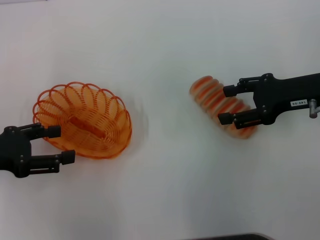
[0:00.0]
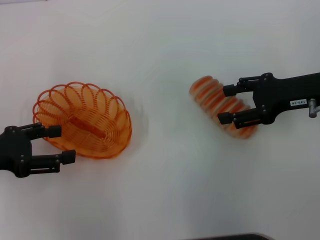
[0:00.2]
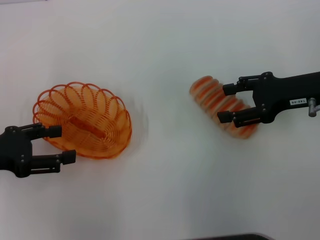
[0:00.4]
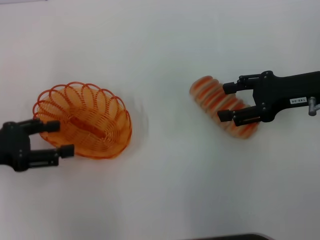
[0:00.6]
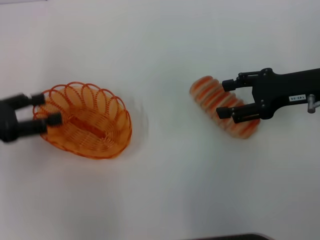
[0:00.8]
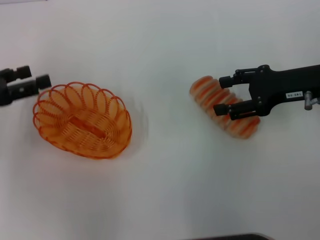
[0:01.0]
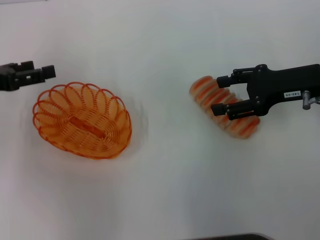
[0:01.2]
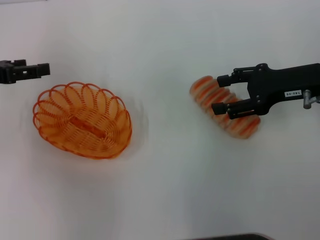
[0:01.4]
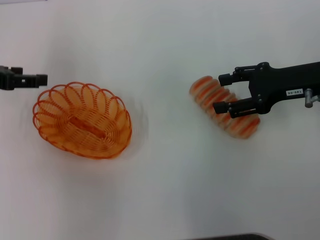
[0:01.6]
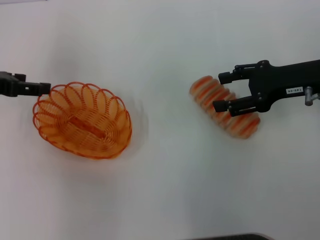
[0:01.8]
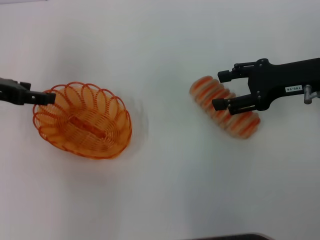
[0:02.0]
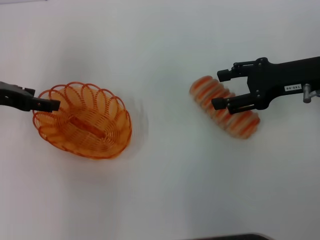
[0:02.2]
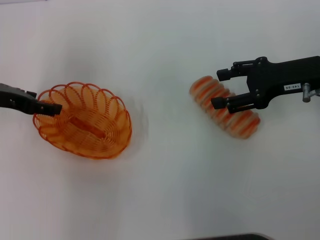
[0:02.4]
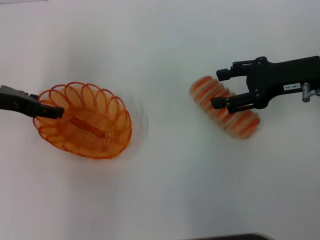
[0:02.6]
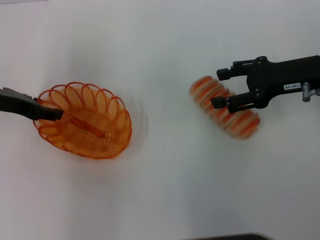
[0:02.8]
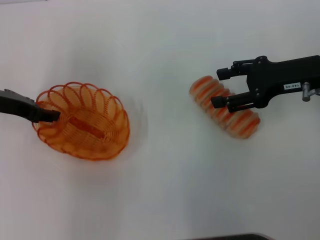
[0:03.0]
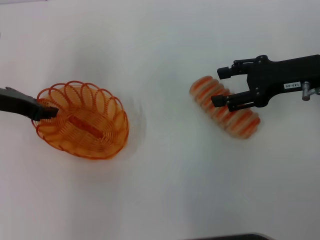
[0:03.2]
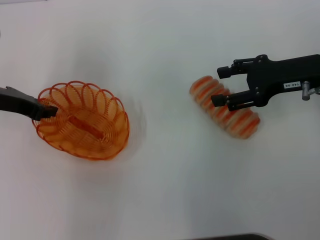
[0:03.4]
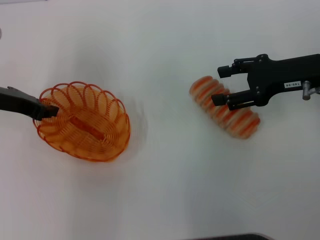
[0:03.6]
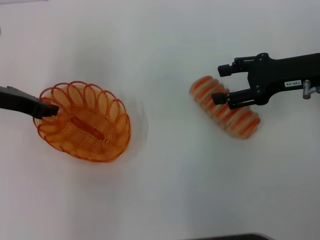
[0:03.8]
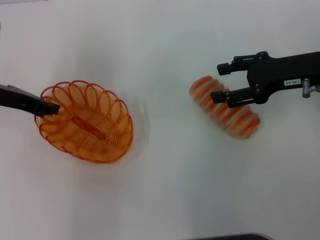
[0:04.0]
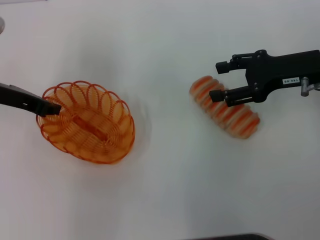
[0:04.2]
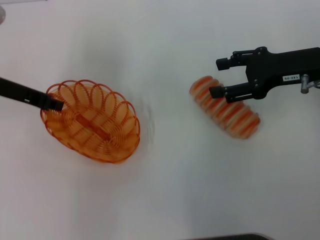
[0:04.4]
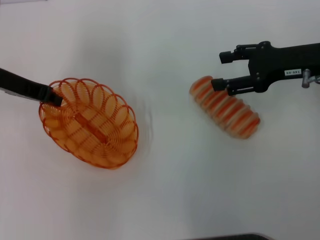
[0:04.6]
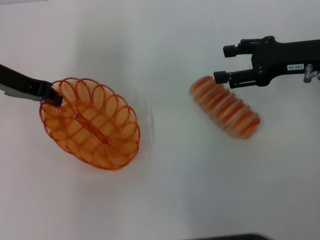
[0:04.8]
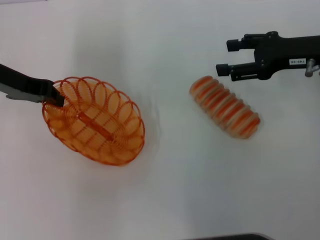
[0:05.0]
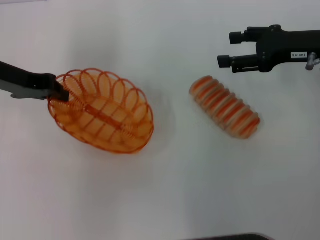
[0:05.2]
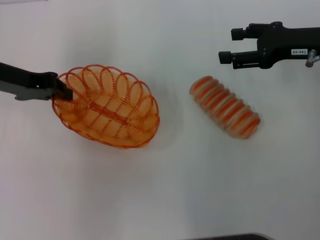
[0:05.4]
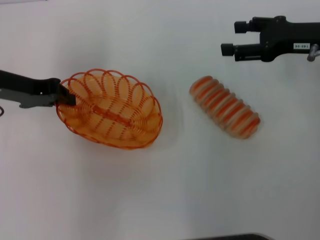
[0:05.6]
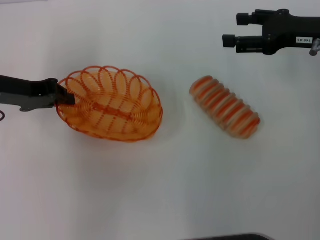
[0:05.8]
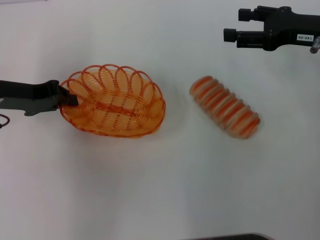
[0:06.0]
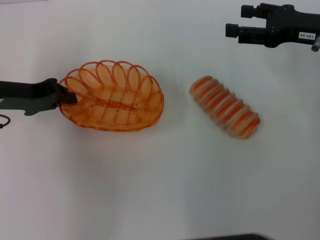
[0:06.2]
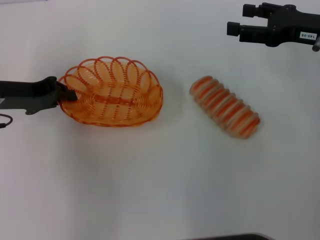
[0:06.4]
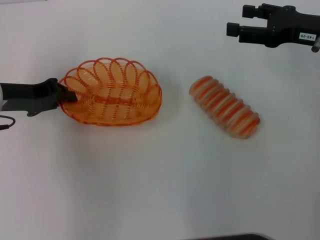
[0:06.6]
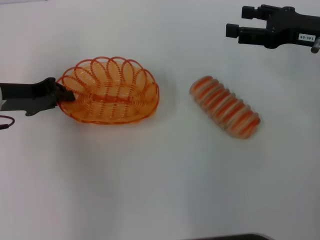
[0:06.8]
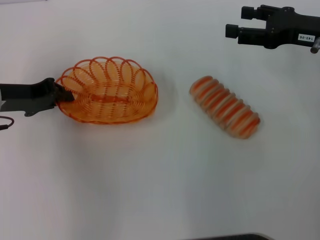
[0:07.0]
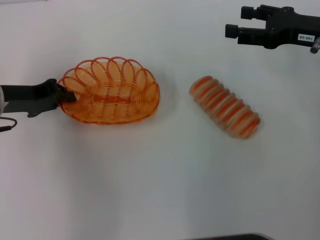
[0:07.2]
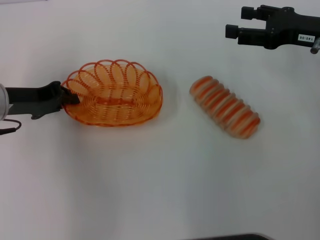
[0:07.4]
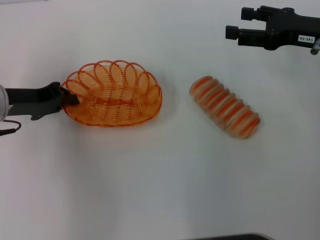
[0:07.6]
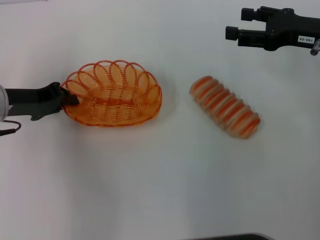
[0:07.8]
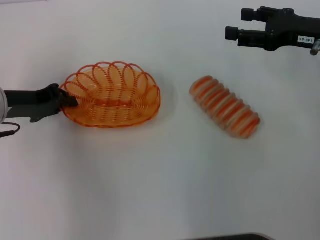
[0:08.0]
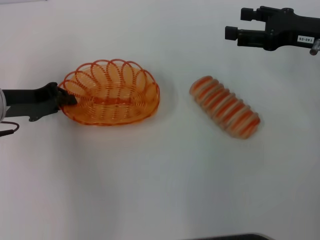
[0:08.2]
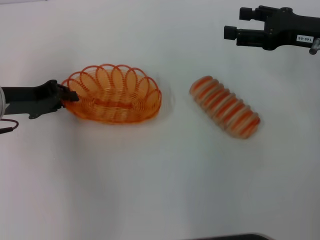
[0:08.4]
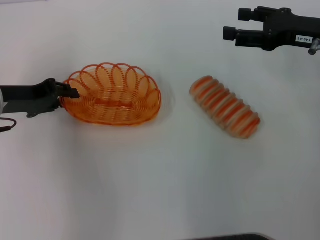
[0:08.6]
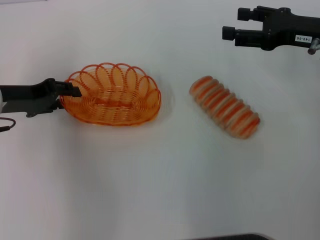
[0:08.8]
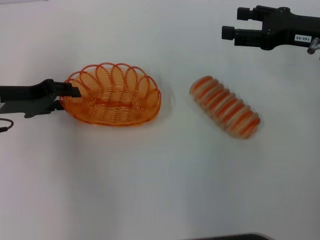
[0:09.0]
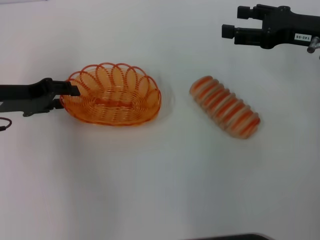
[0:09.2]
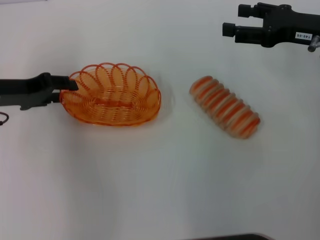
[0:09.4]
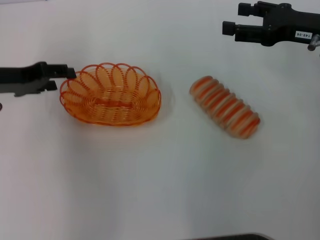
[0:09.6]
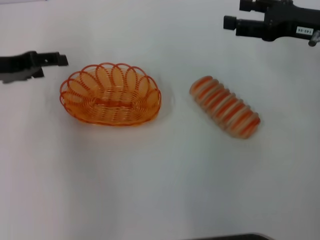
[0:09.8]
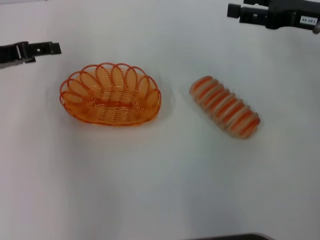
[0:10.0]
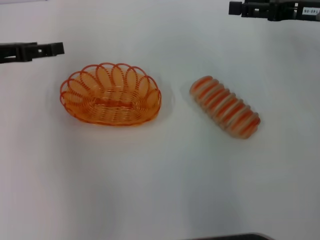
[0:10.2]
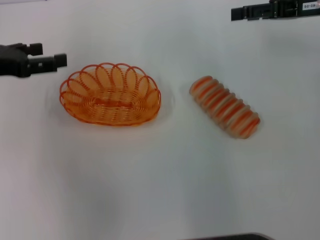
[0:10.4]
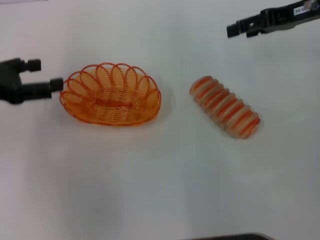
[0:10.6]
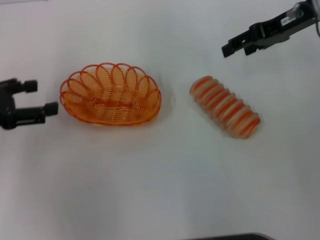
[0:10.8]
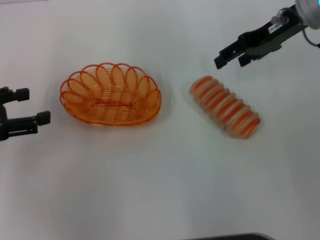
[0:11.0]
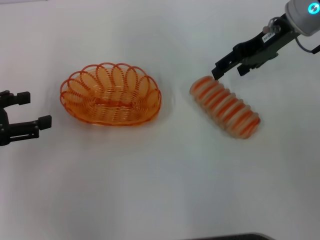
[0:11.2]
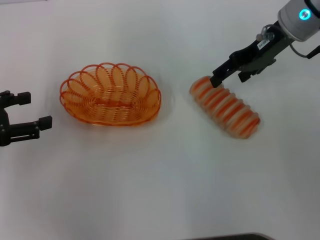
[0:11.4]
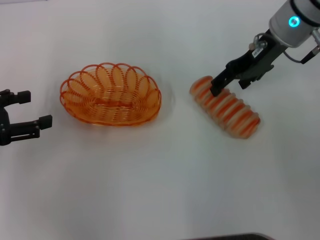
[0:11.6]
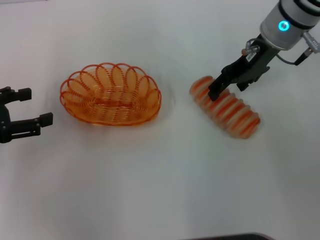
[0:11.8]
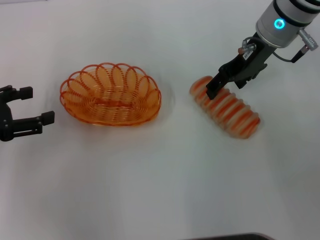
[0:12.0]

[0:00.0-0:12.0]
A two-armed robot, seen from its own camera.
Step, 0:00.0 to 0:05.2: Pick up the basket with the left gripper.
Step, 0:05.4 to 0:09.6: Place the basket in the center of view with the left gripper.
0:00.0 to 0:01.6: The left gripper heads forward, covering roughly 10 cm.
0:01.6 to 0:03.0: The left gripper shifts by about 5 cm.
0:03.0 to 0:04.4: The left gripper closes up.
0:06.0 to 0:07.6: The grippers stay close to where they were, moving slightly.
0:07.6 to 0:09.0: The left gripper opens its fingers.
0:09.0 to 0:10.4: The right gripper moves approximately 5 cm, while the left gripper moves upward, about 5 cm, and opens up.
0:10.4 to 0:12.0: The left gripper heads backward, covering roughly 5 cm. The right gripper travels to the left by about 10 cm.

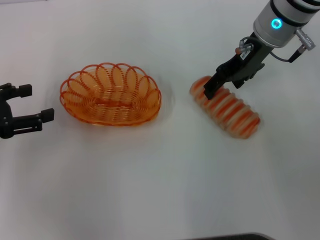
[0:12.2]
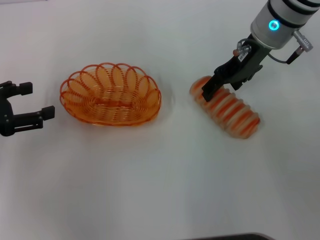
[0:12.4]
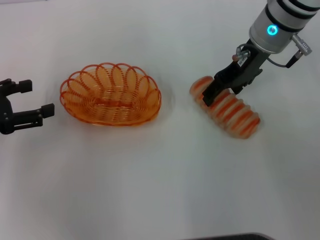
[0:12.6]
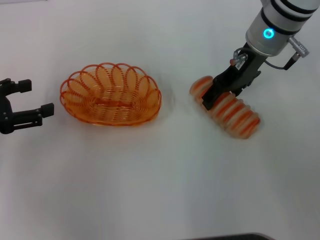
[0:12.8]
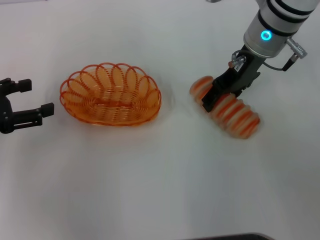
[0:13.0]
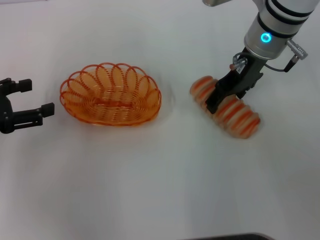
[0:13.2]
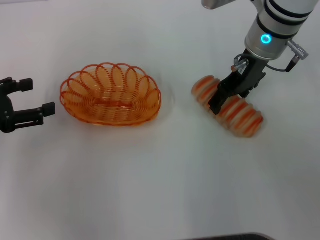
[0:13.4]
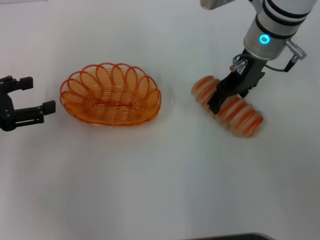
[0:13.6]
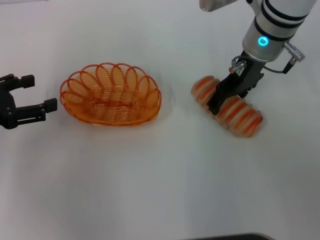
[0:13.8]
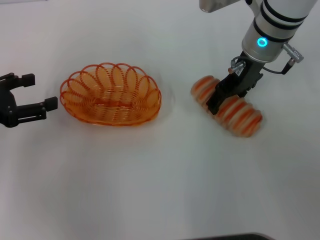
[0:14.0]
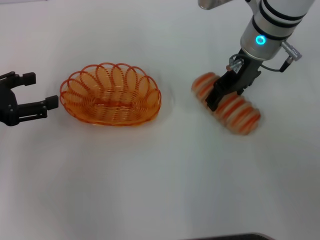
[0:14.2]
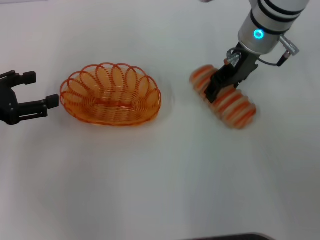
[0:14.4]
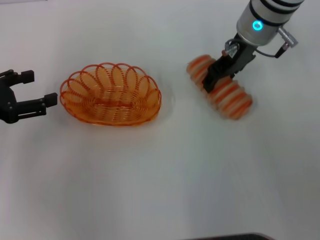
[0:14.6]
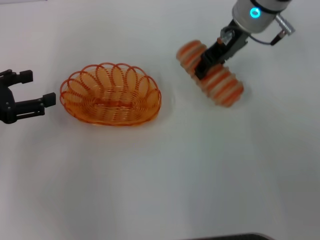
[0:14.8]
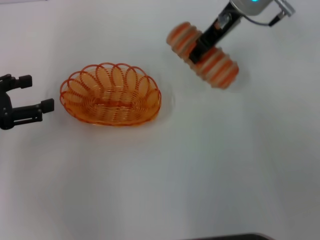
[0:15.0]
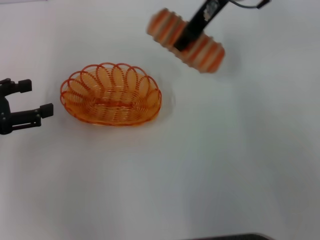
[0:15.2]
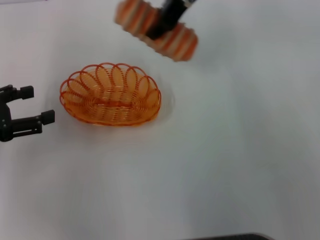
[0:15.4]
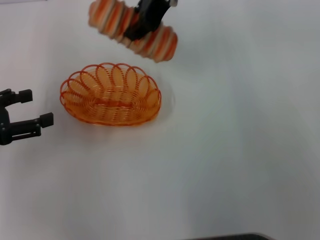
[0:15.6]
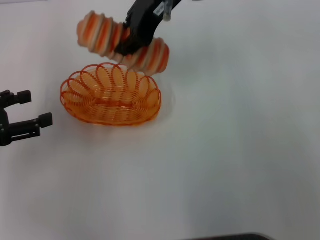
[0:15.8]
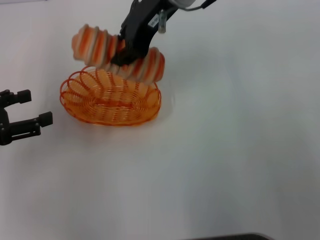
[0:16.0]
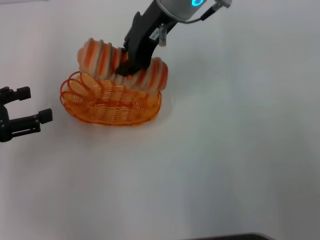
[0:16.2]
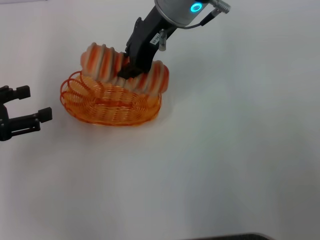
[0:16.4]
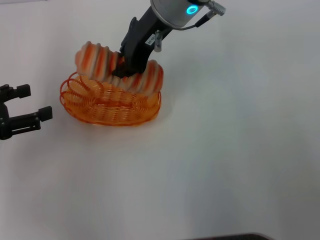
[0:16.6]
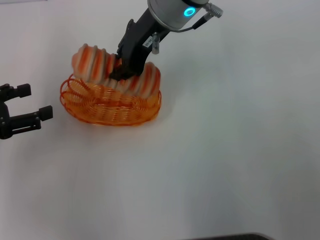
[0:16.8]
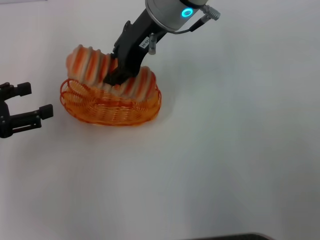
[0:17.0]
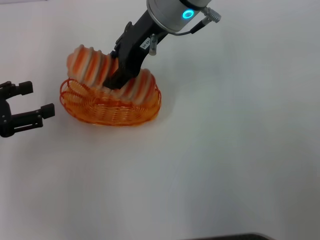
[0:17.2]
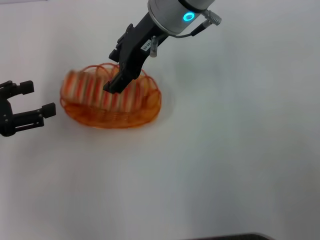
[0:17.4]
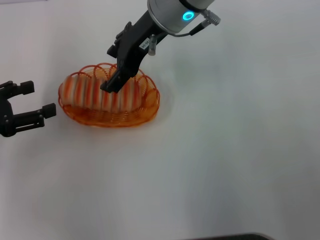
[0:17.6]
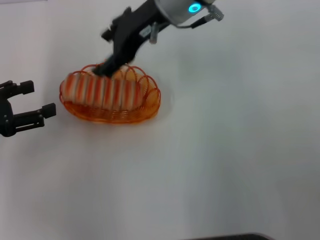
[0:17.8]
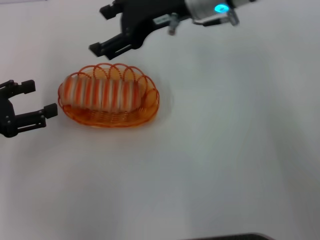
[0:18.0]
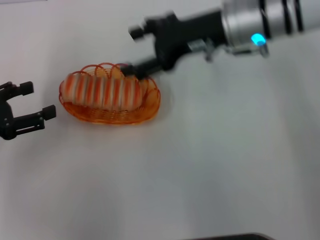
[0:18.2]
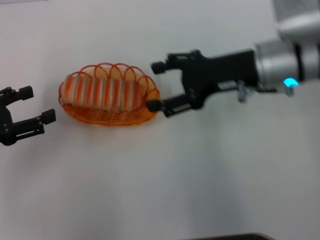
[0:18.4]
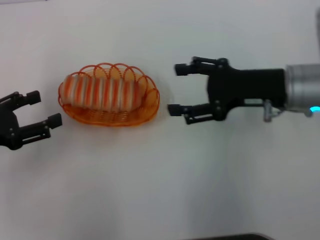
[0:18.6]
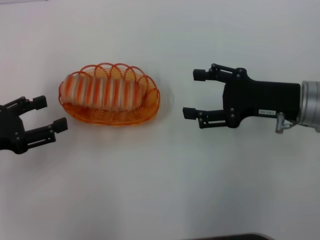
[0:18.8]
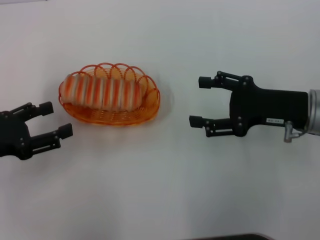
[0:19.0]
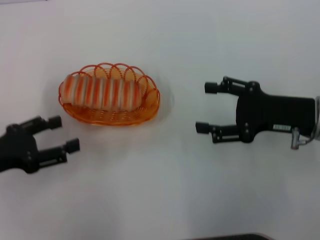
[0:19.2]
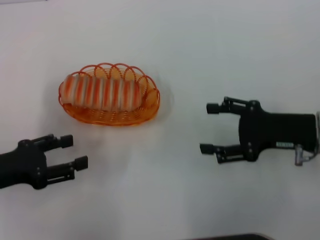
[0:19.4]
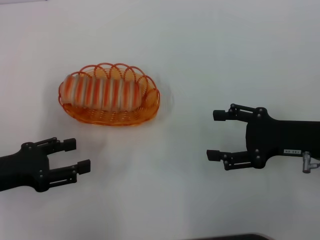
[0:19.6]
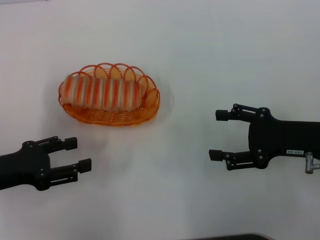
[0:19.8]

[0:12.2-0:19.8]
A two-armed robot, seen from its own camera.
Step, 0:12.2 to 0:14.6: Pick up the long bread with the right gripper.
Step, 0:14.8 to 0:17.8: Place the long bread into the basket with the right gripper.
0:12.2 to 0:13.8: The grippers stay close to where they were, moving slightly.
0:13.8 to 0:15.2: The right gripper is displaced upward by roughly 5 cm, and closes.
0:15.2 to 0:16.8: The right gripper travels to the left by about 5 cm, and closes up.
0:16.8 to 0:18.2: The right gripper moves to the right, roughly 10 cm, and opens its fingers.
0:18.2 to 0:19.8: The left gripper changes place by approximately 5 cm, while the right gripper travels backward, to the right and downward by some 20 cm.

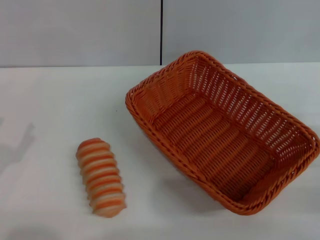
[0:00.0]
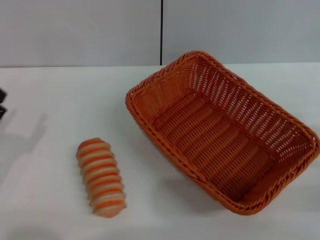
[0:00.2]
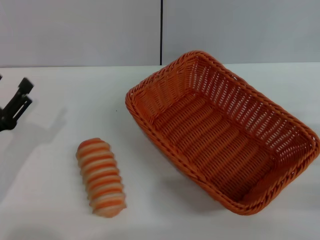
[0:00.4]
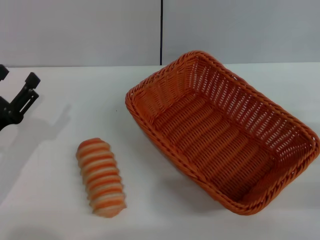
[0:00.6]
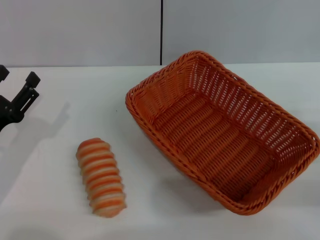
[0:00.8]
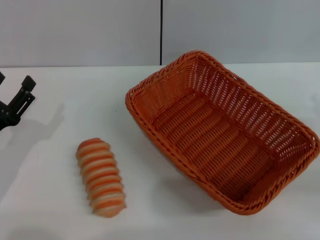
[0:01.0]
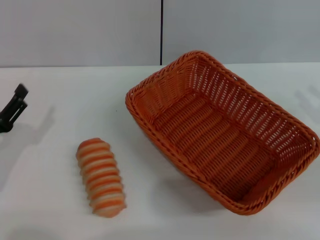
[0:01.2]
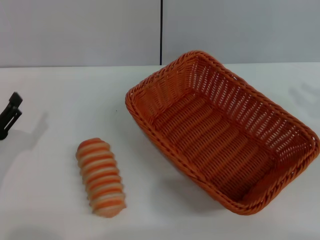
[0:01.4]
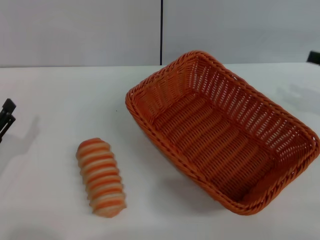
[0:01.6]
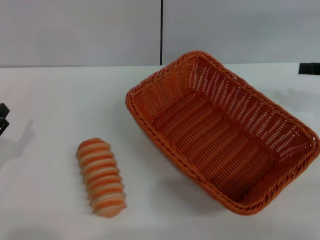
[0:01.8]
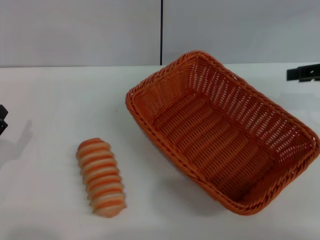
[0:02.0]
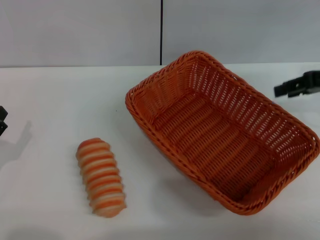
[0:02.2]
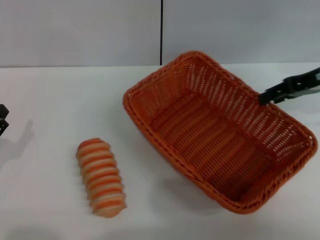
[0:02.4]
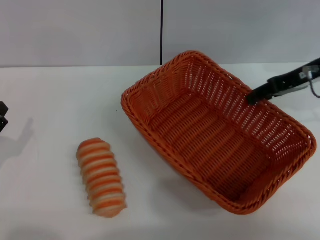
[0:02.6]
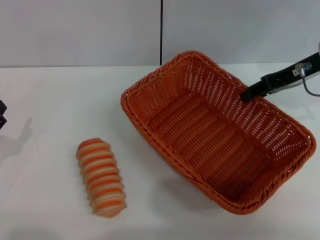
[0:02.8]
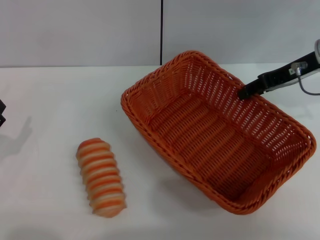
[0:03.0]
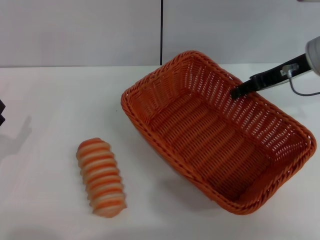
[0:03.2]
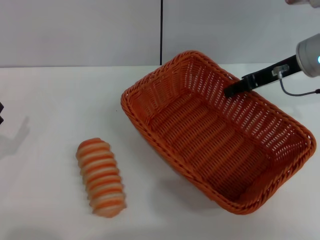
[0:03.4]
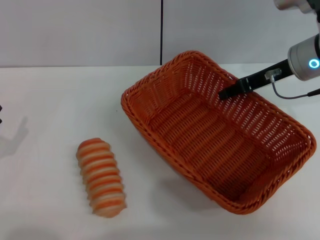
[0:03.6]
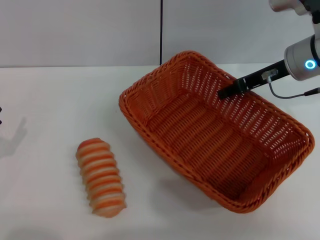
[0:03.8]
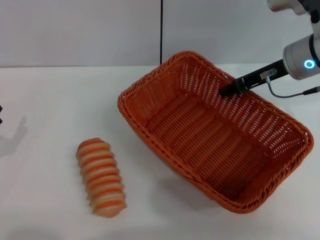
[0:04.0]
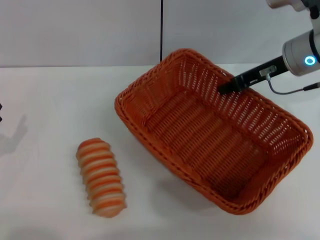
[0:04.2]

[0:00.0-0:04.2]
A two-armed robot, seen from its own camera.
0:01.4 to 0:02.8: The right gripper moves to the left and forward, approximately 15 cm.
0:02.8 to 0:04.2: The right gripper closes up.
